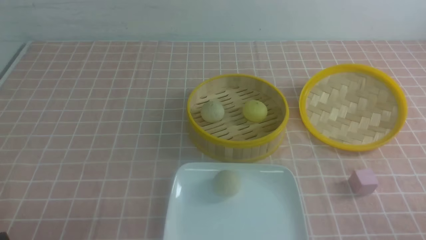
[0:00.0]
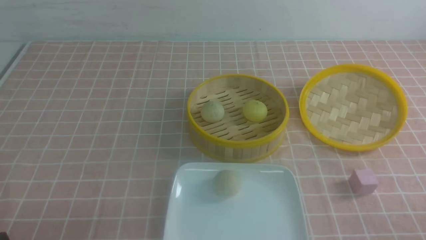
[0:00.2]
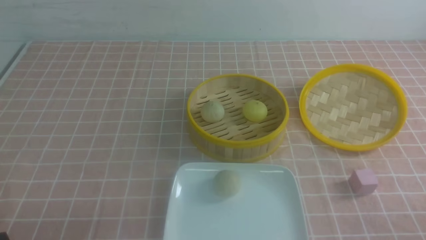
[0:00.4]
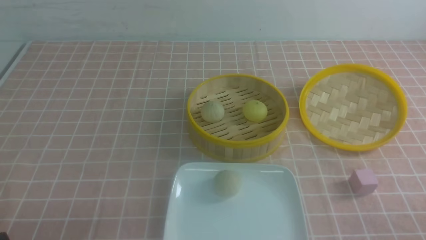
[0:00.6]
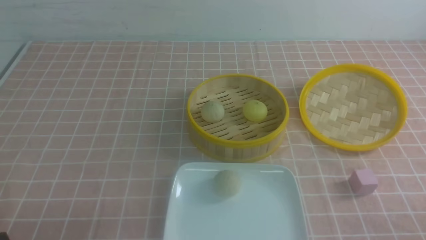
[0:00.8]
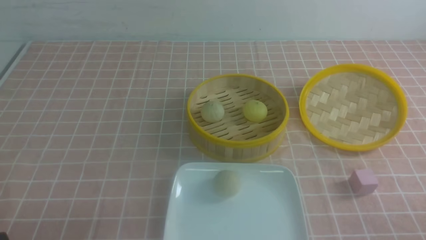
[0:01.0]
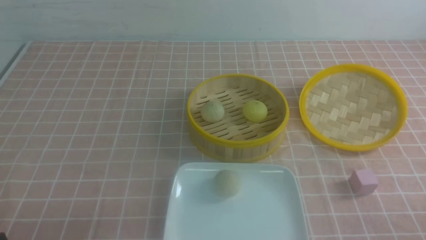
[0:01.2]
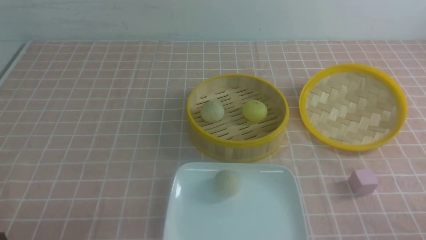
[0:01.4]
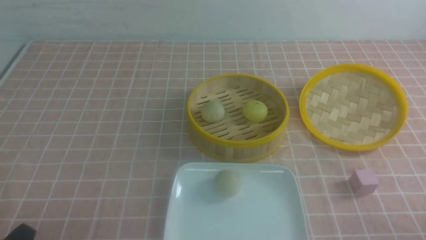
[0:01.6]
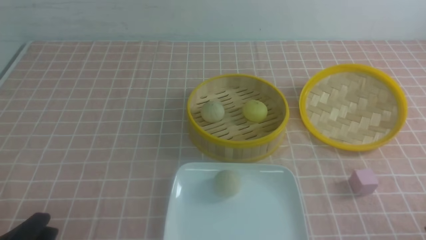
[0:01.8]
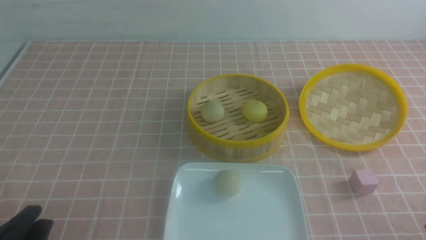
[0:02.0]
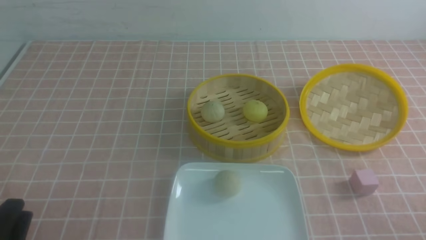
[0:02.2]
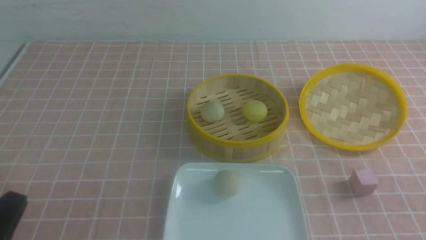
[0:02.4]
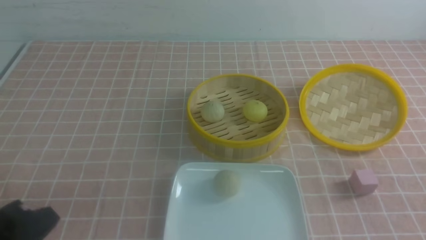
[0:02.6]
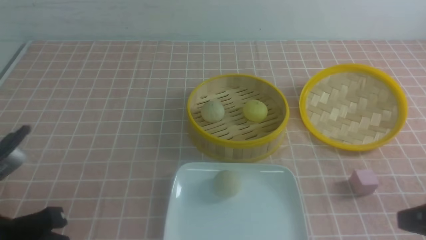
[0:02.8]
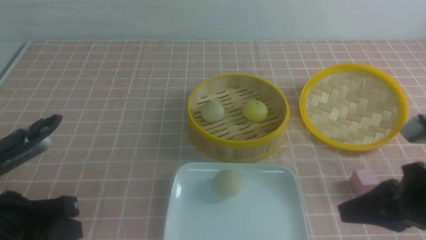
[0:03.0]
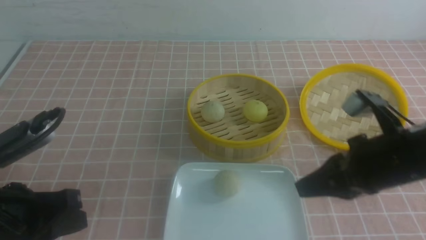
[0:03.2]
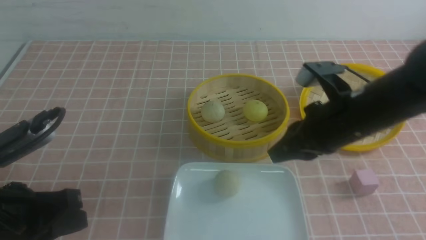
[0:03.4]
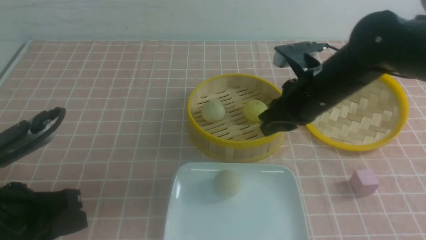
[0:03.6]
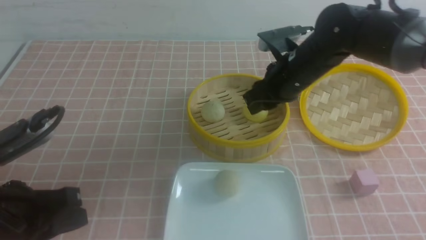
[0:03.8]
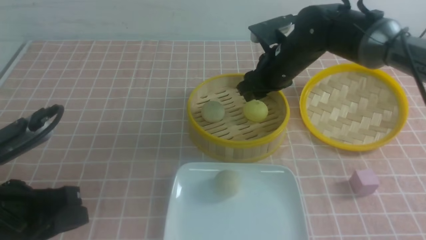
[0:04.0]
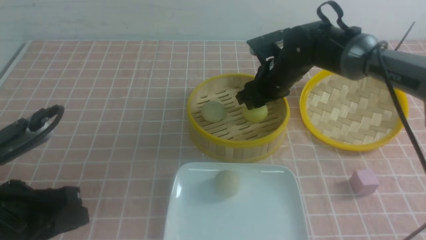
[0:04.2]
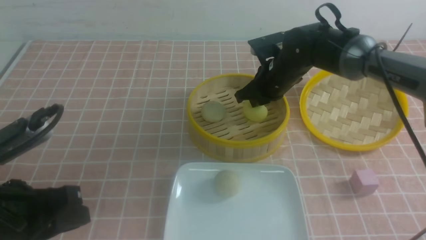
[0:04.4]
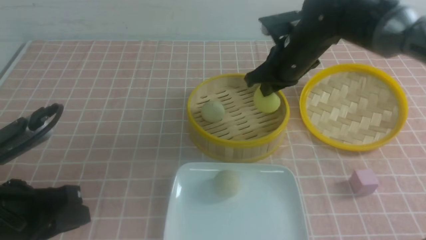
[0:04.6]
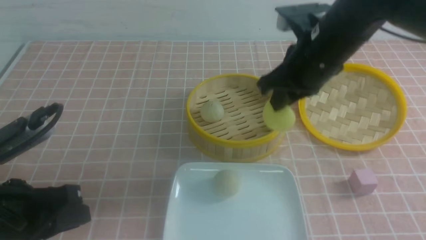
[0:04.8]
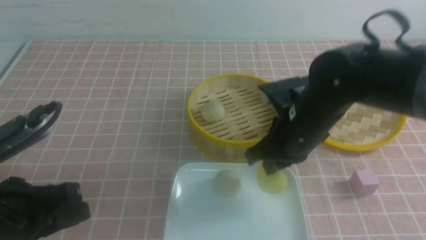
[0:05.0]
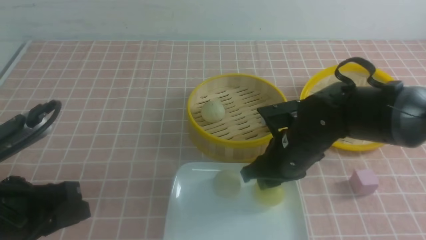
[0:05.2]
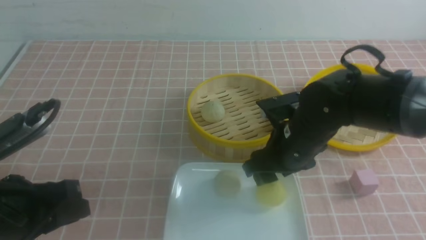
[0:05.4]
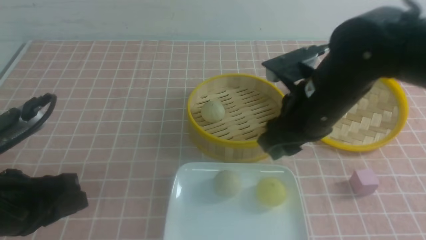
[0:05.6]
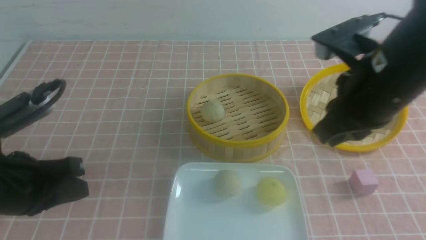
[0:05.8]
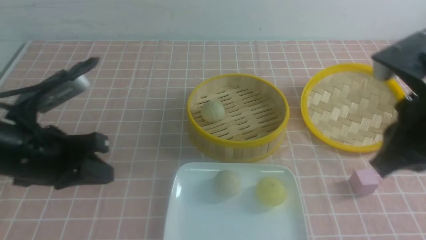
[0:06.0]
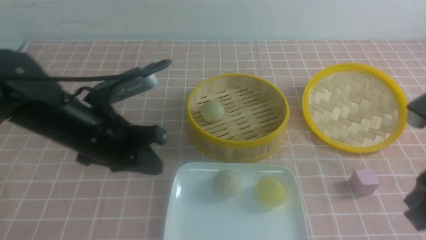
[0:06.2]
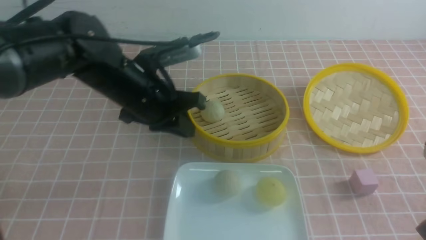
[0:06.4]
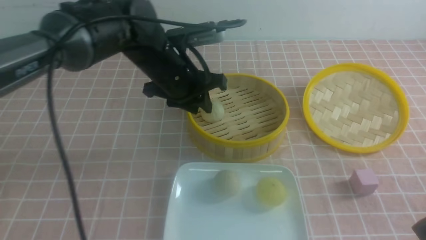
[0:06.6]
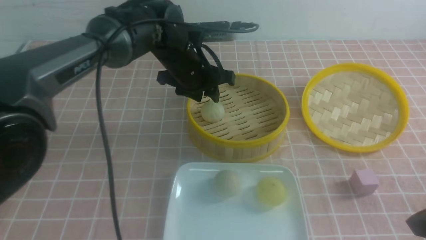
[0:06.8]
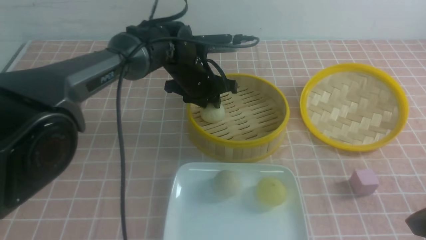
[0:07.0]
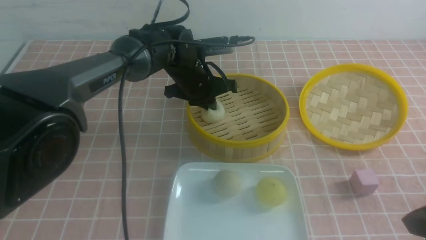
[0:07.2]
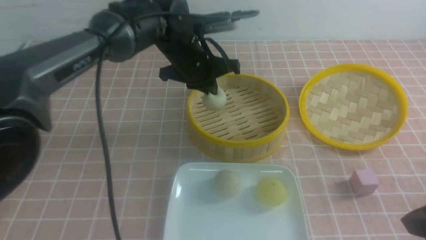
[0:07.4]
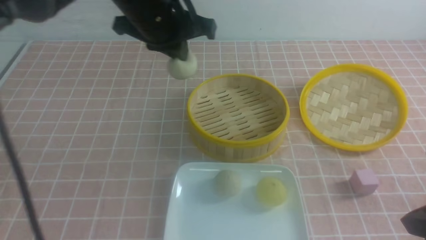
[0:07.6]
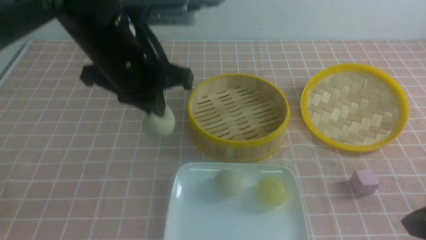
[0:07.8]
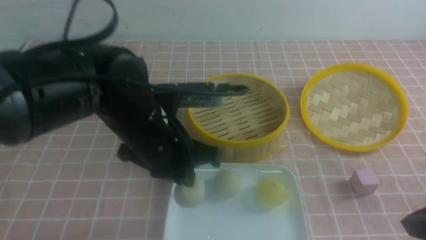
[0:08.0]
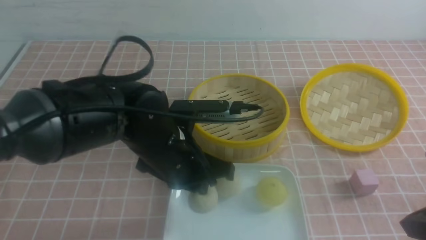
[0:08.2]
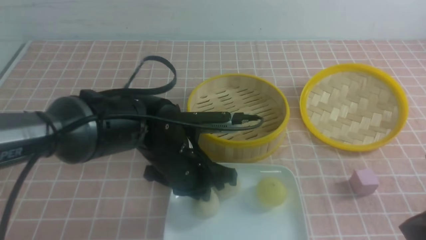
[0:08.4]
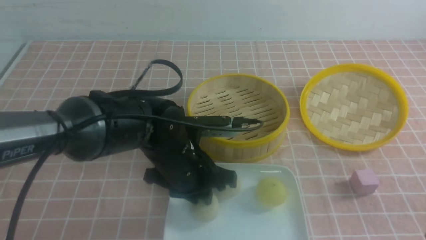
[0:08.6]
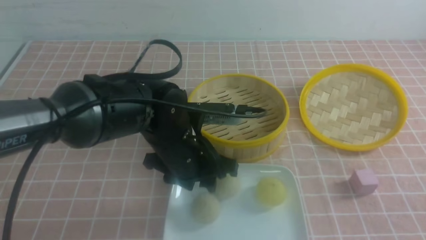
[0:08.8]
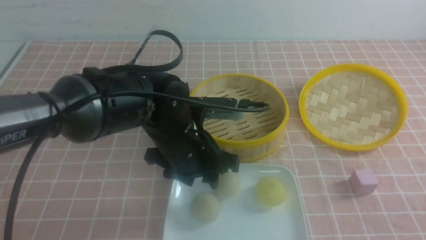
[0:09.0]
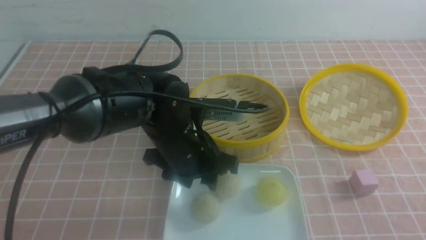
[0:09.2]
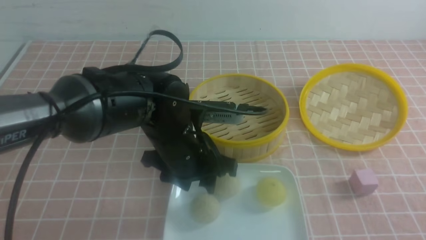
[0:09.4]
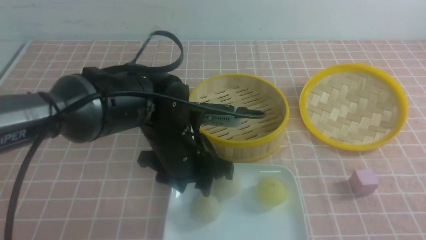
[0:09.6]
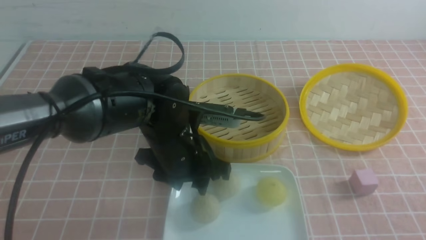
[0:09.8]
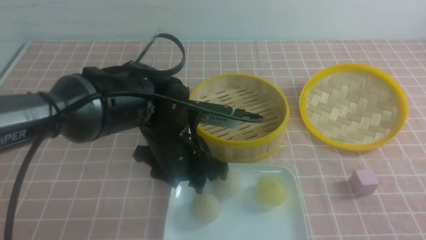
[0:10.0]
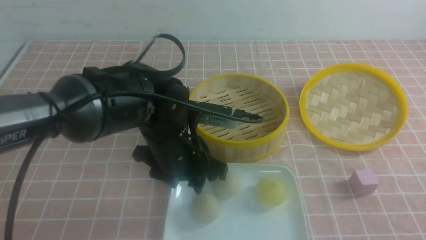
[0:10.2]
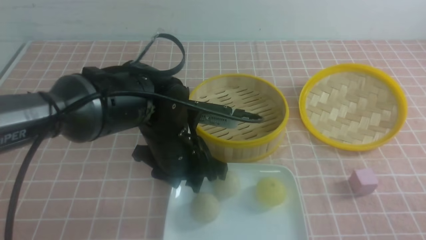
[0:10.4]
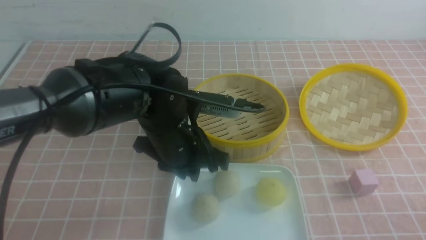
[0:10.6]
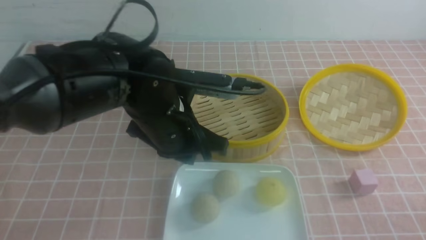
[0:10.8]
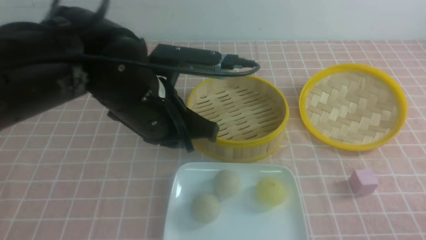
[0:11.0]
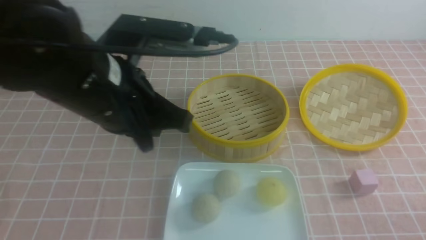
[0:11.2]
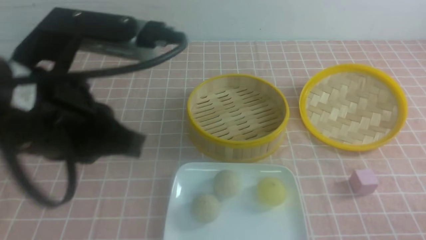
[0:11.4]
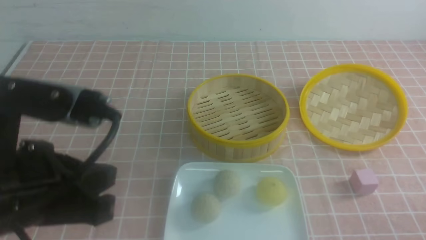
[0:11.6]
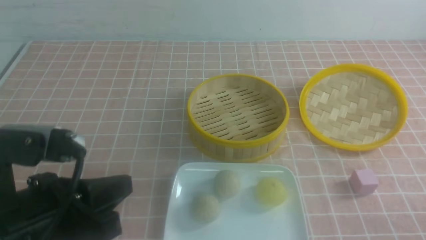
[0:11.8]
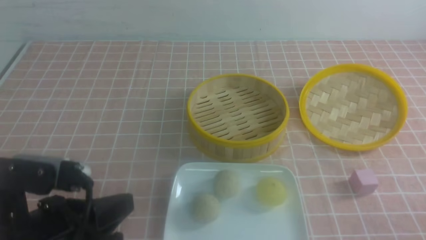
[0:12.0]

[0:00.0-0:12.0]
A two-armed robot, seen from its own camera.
Step, 0:00.0 to 0:04.4: use the right arm to grab the steamed stuffed bun that is closest to it.
Step, 0:04.6 to 0:05.4: use the right arm to put the steamed stuffed bun into the plate.
Step, 0:05.6 to 0:07.2: use the left arm to grab the steamed stuffed bun that is closest to it.
Step, 0:07.4 to 0:08.8: use the left arm to put the steamed stuffed bun into the plate.
0:01.6 to 0:03.0: The left gripper is displaced upward and forward by approximately 10 cm, and closes up; the right gripper travels forward, upward and to the left by about 15 cm, and closes.
0:03.0 to 0:04.4: The right gripper travels forward and to the left by about 30 cm, and opens and closes again.
0:04.4 to 0:06.0: The left gripper travels forward by approximately 10 cm. The right gripper is displaced backward and upward by roughly 25 cm, and opens and closes again.
0:06.0 to 0:07.6: The left gripper is displaced to the right, forward and upward by roughly 20 cm, and opens and closes again. Meanwhile the right gripper heads backward and downward, covering about 10 cm.
0:07.6 to 0:09.0: The right gripper heads backward, covering approximately 10 cm. The left gripper goes some 15 cm downward and backward, and opens.
0:09.0 to 0:10.4: The right gripper is displaced downward by approximately 10 cm.
0:10.4 to 0:12.0: The left gripper goes some 20 cm backward and to the left, and closes its fingers. The right gripper shifts roughly 5 cm downward.

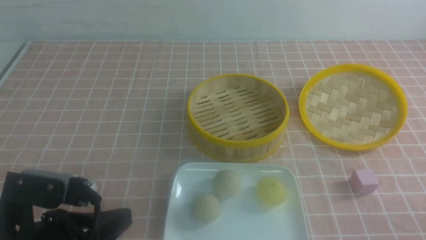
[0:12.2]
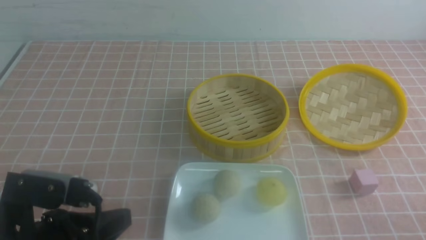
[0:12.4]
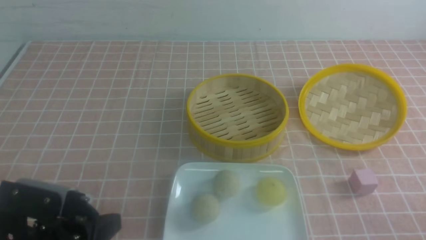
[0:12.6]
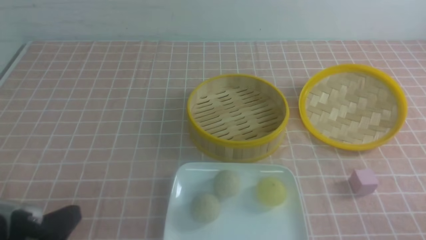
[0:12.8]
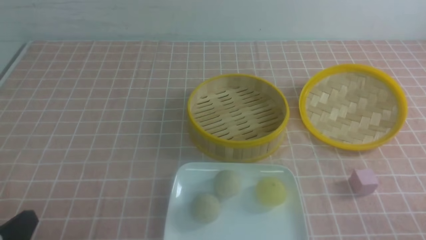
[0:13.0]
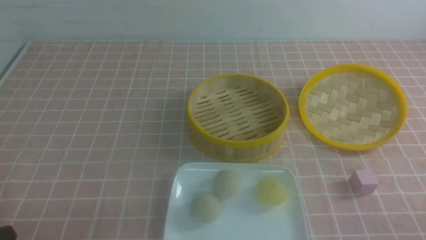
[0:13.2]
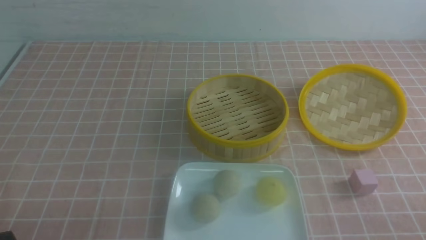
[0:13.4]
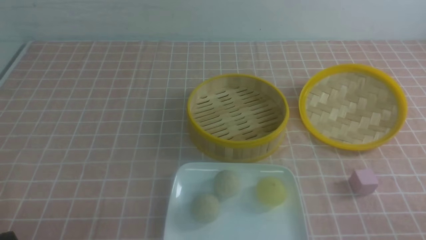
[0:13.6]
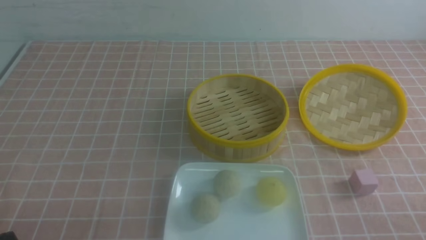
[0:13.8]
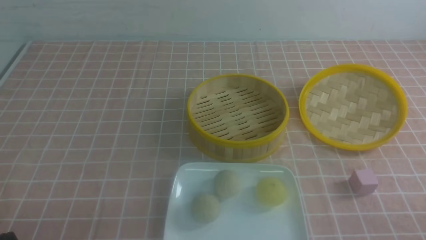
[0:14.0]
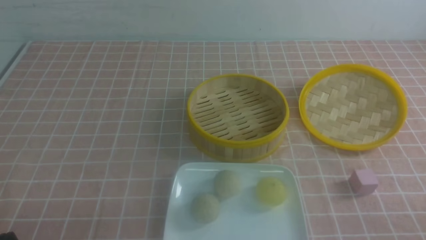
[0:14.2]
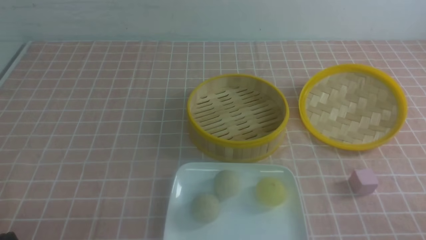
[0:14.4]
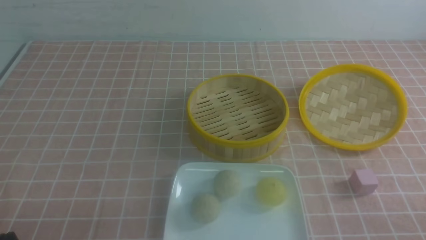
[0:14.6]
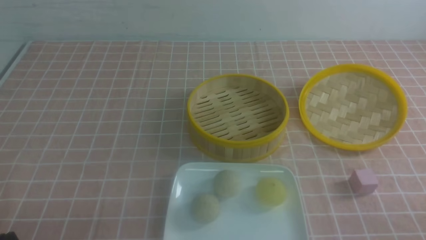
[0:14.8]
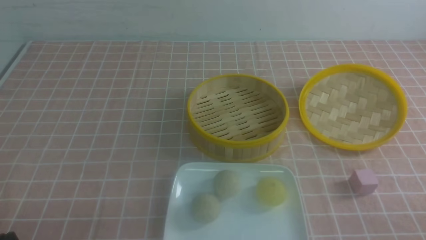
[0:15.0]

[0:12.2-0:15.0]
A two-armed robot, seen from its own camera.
0:12.2 to 0:13.6: The left gripper moves to the left and downward, approximately 10 cm.
0:13.6 to 0:15.0: The two grippers keep their place.

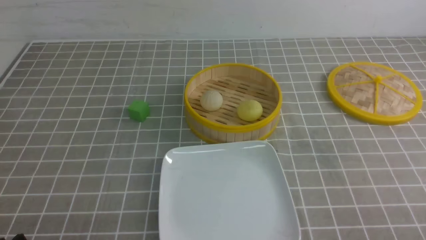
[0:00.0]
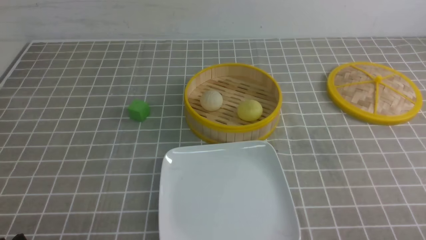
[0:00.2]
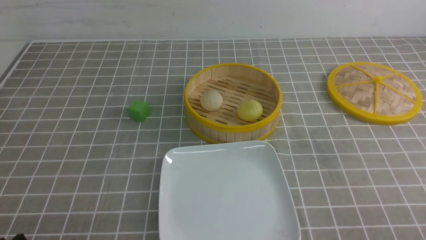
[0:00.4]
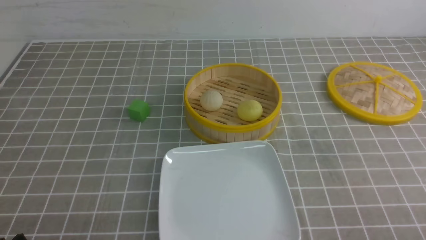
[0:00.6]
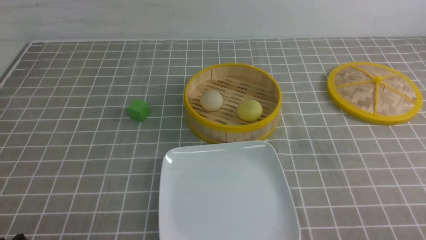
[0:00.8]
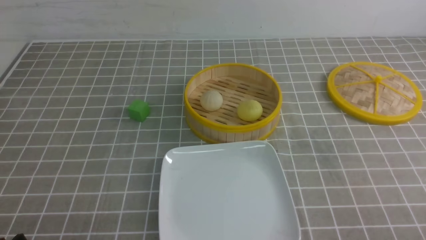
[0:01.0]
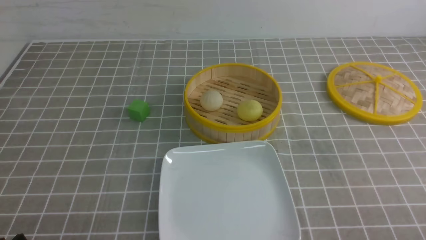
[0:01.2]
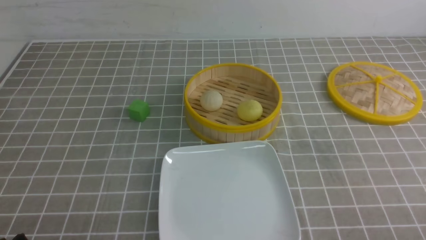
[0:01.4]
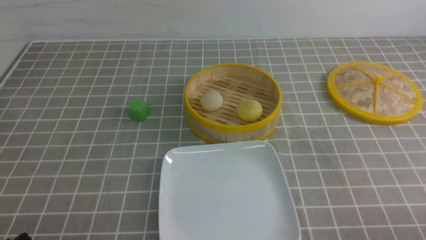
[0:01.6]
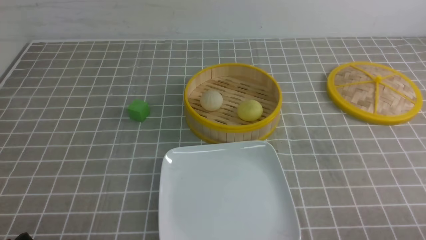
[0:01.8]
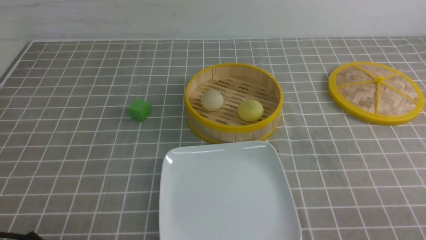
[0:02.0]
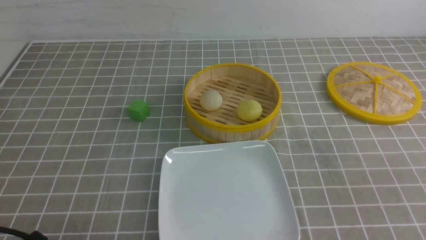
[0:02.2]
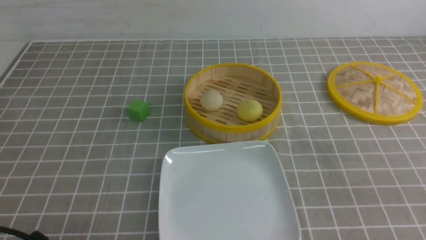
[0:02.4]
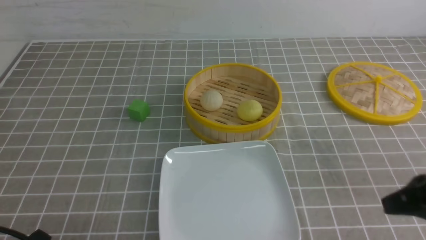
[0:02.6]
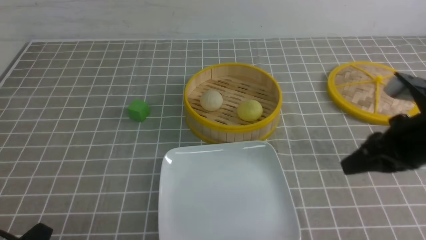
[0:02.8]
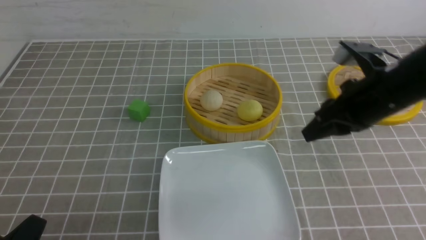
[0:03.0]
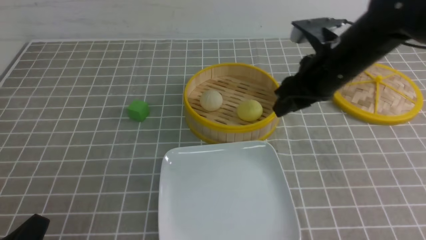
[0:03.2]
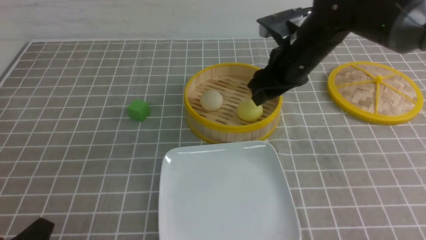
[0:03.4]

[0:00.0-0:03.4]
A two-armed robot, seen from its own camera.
0:01.6 to 0:03.4: The right gripper travels forward and to the left by about 40 cm, and opens its fingers.
